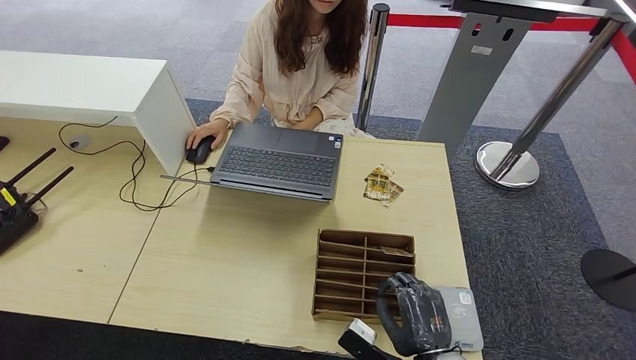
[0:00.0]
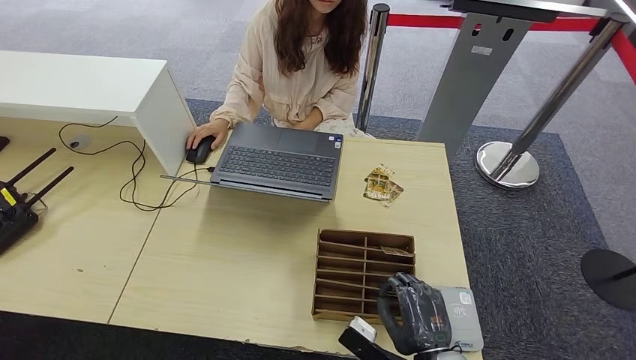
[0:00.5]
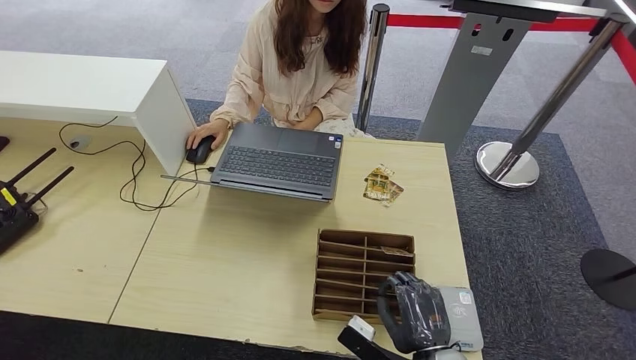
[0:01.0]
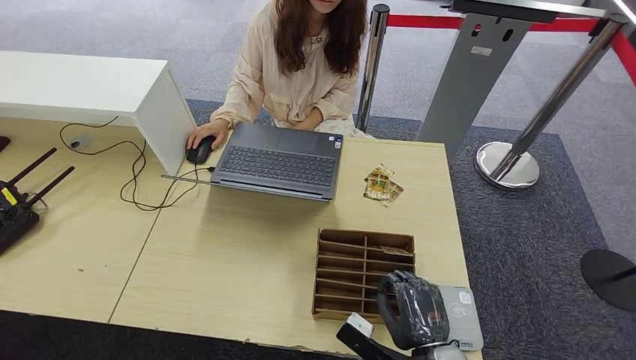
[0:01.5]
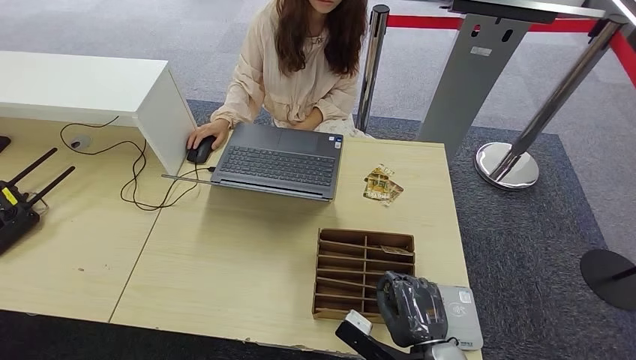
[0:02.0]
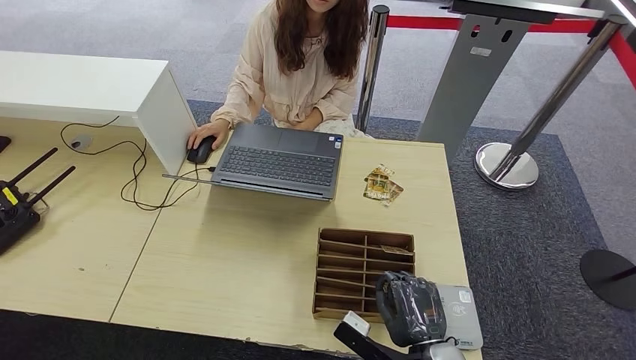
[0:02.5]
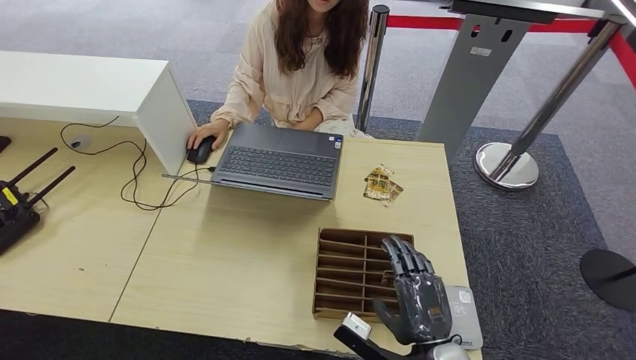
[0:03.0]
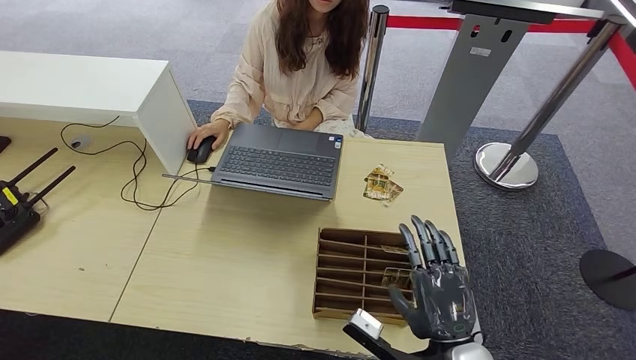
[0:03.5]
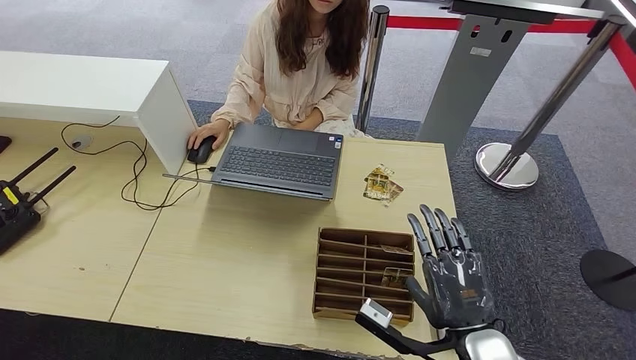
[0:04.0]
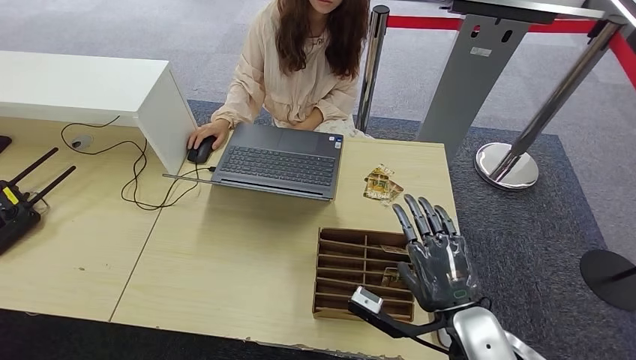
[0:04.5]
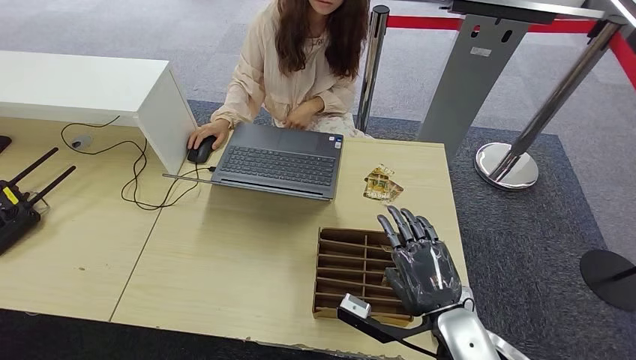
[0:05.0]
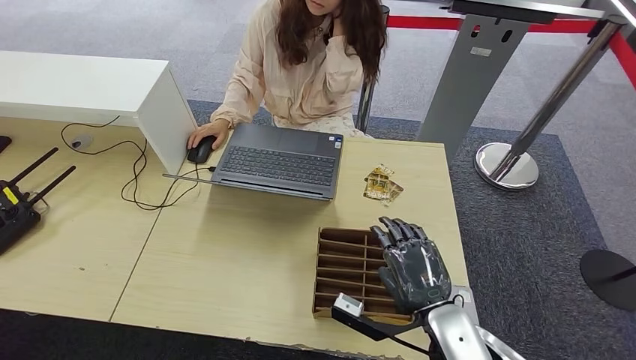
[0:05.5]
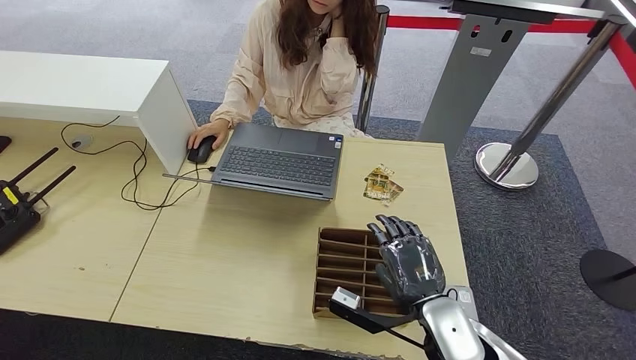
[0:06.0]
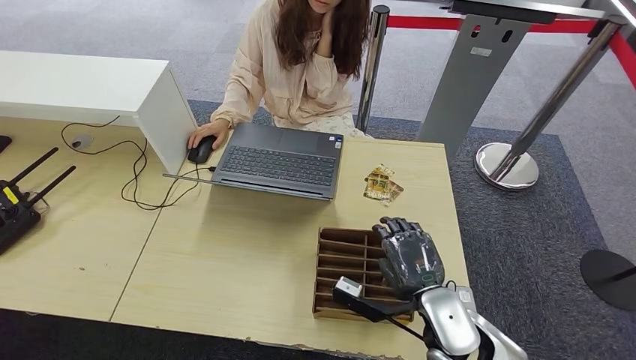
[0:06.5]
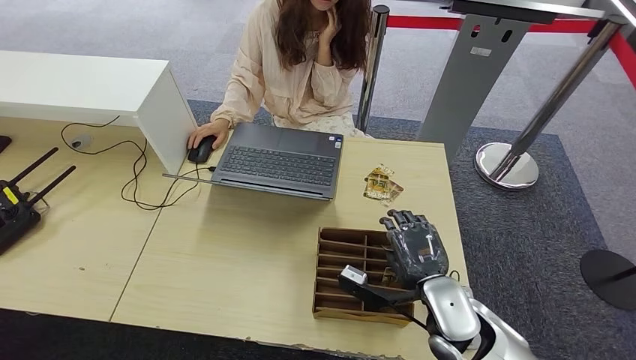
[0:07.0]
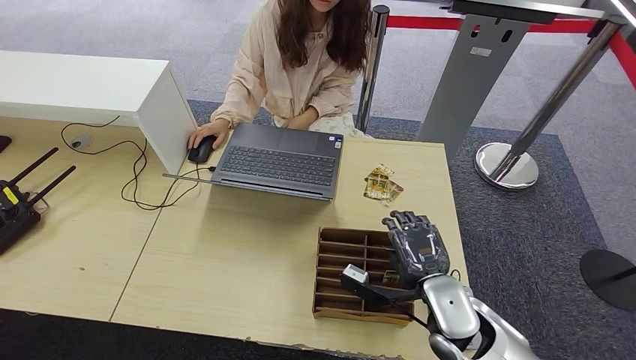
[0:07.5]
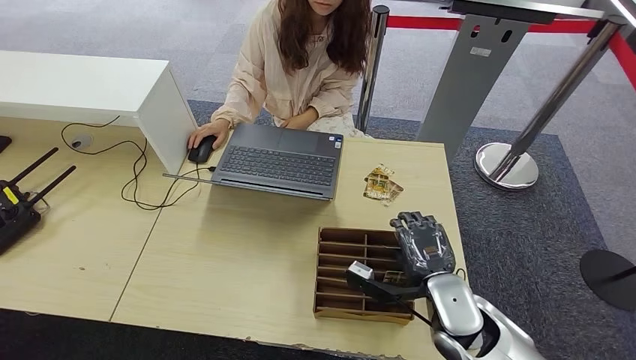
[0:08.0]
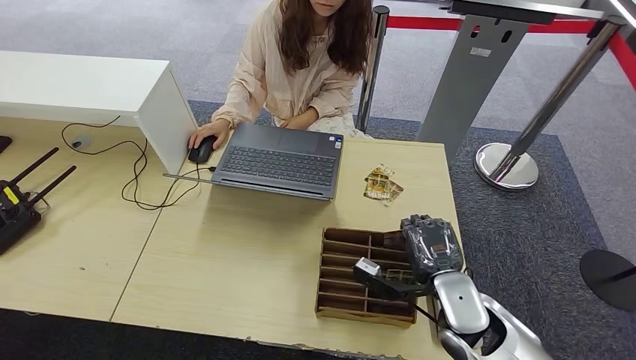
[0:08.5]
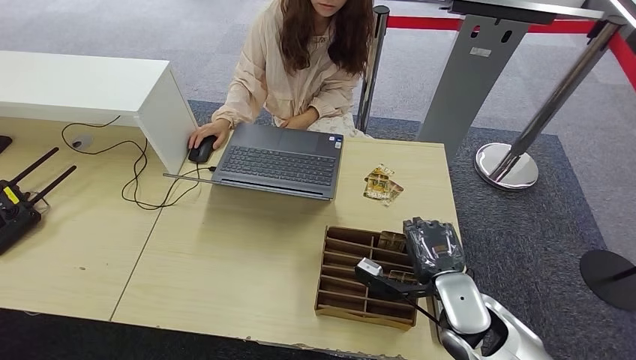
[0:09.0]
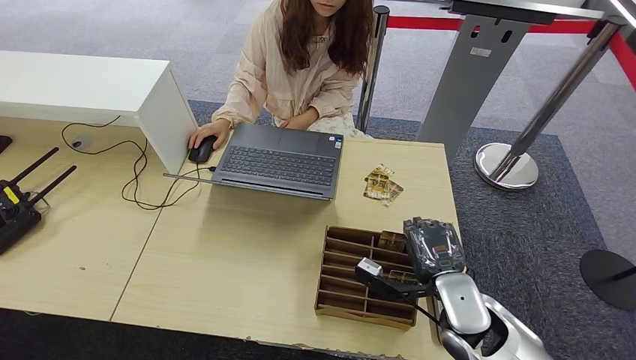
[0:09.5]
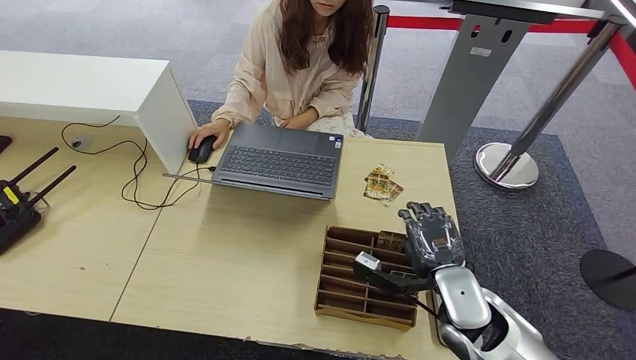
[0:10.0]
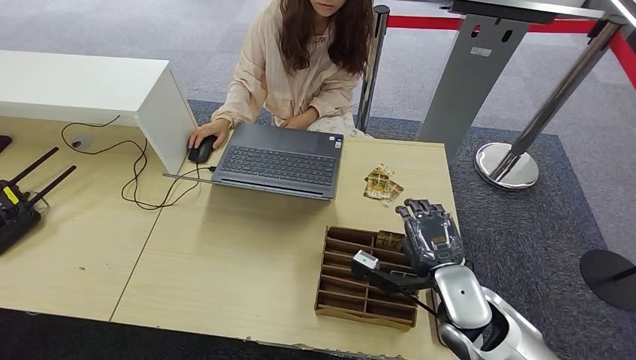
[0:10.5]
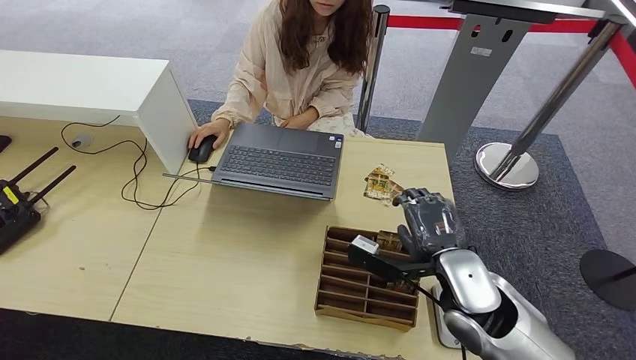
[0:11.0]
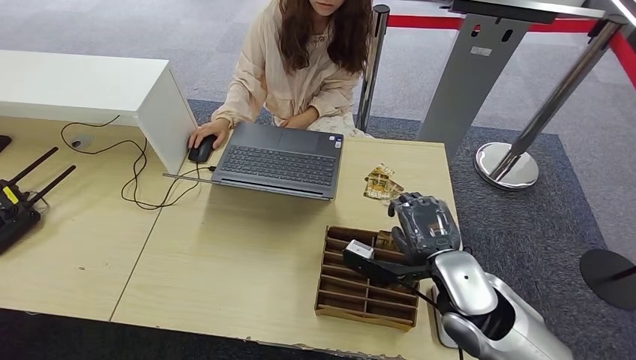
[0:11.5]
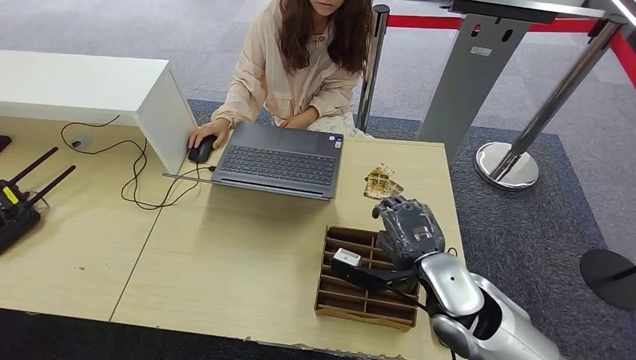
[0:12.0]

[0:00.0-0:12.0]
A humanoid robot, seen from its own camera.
0:00.0 to 0:02.0: Both hands stay about where they are.
0:02.0 to 0:04.0: The right hand travels upward by about 10 cm.
0:04.0 to 0:06.0: The right hand ends up some 5 cm from where it was.
0:06.0 to 0:10.0: The hands move only a little.
0:10.0 to 0:12.0: The right hand shifts by some 5 cm.

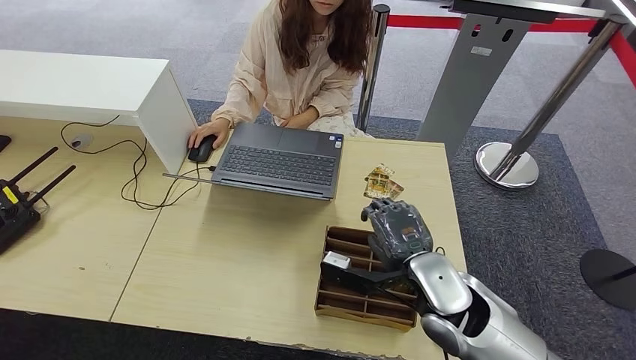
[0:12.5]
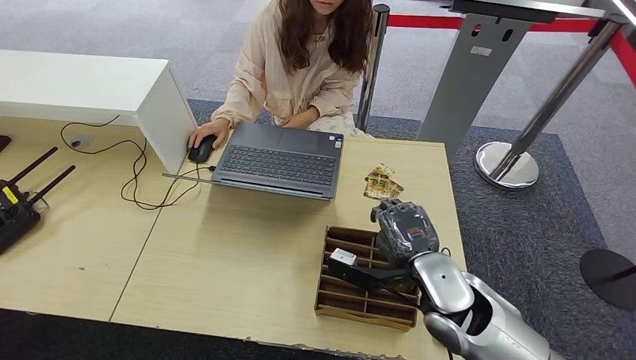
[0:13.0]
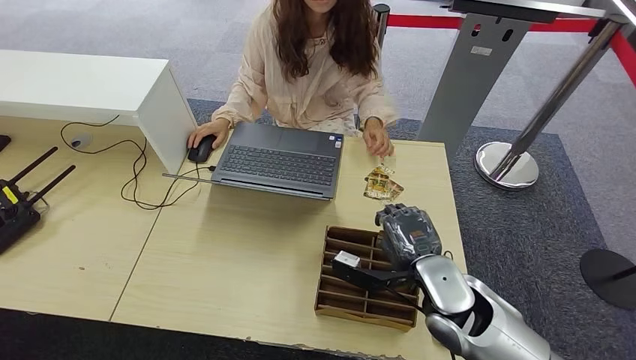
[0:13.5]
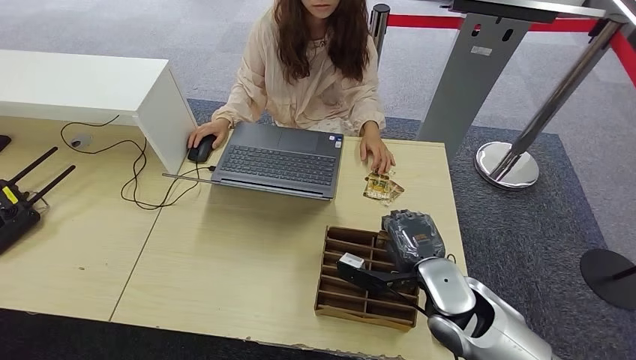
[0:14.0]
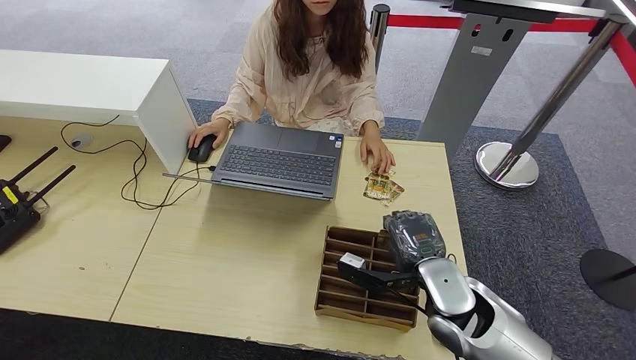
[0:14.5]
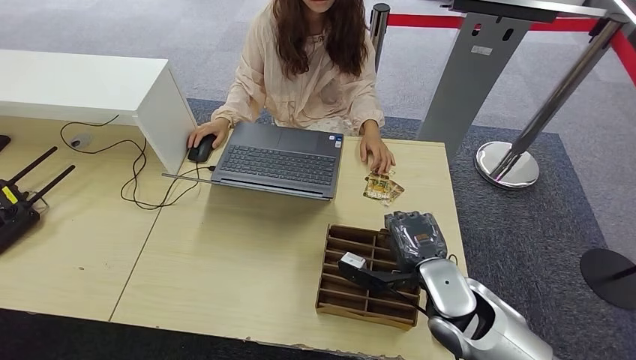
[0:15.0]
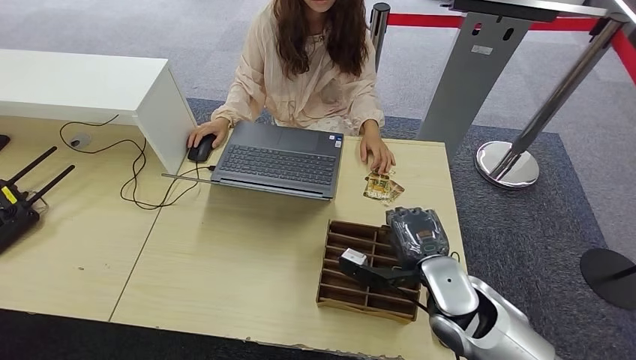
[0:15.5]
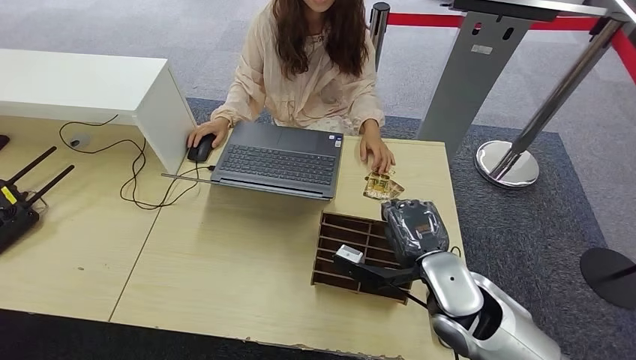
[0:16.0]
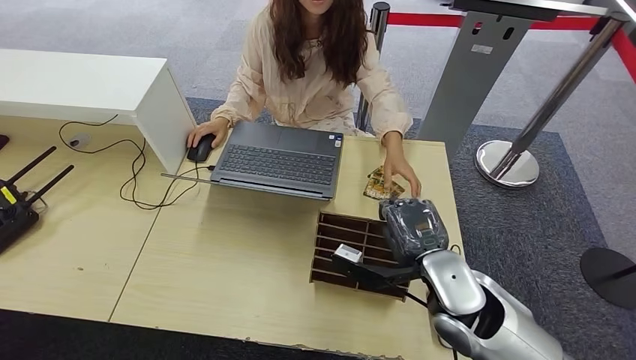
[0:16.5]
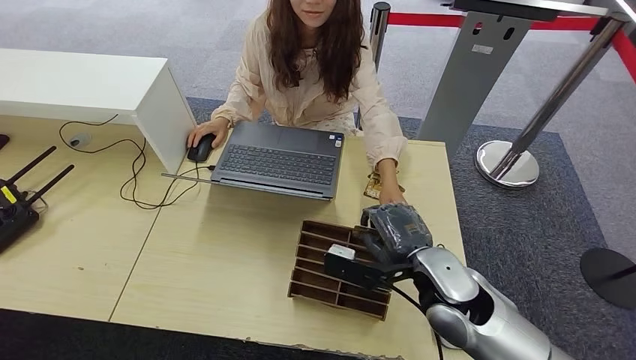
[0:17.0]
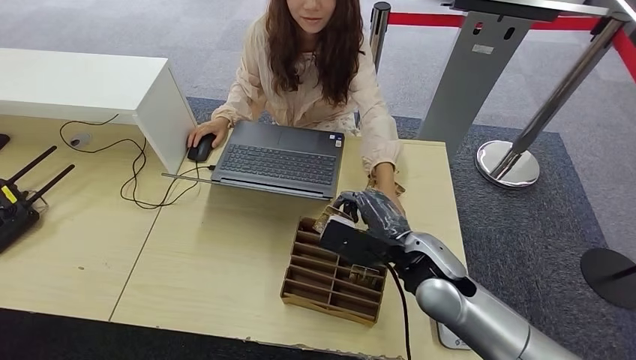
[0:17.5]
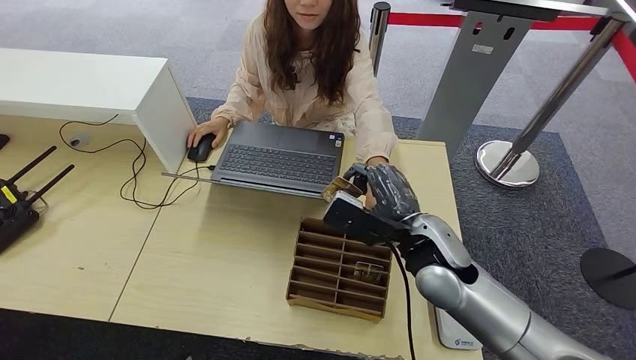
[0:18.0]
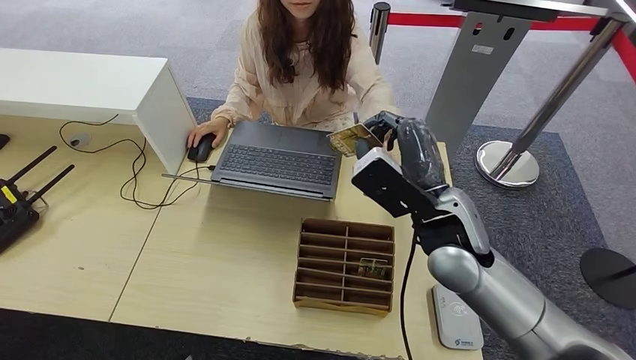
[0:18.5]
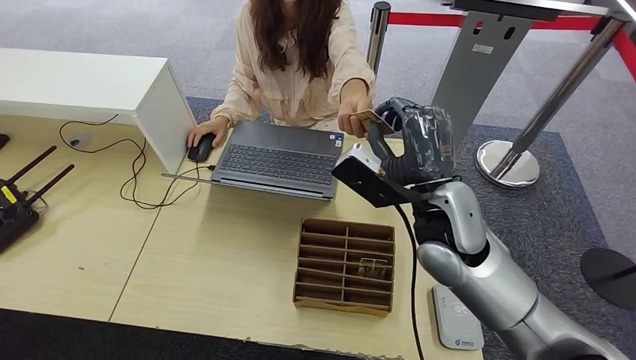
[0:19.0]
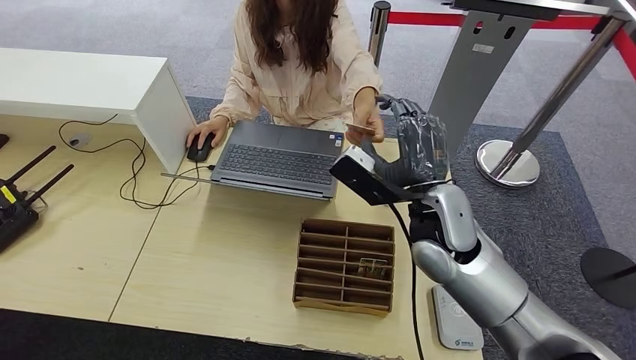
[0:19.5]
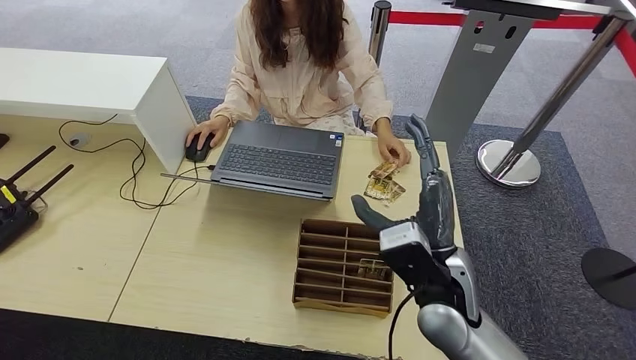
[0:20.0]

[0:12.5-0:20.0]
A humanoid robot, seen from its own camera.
Step, 0:12.5 to 0:17.0: Pick up the room key from the key card box.
Step, 0:17.5 to 0:20.0: Hand the room key to the person.
0:12.5 to 0:16.5: The hands move only a little.
0:16.5 to 0:18.0: The left hand travels to the left by roughly 5 cm; the right hand ends up about 5 cm from where it was.
0:18.0 to 0:20.0: The left hand heads to the right, covering about 5 cm, while the right hand travels backward by roughly 5 cm.
